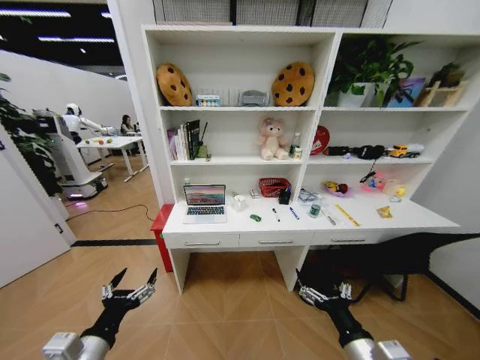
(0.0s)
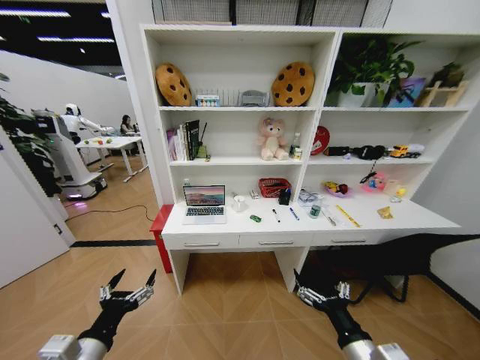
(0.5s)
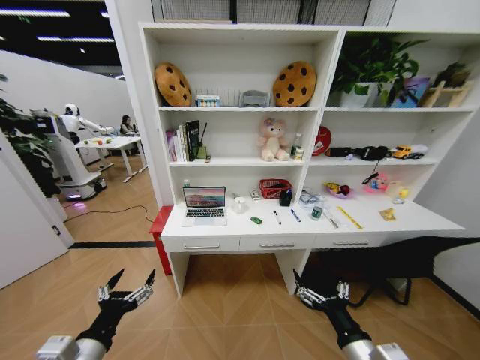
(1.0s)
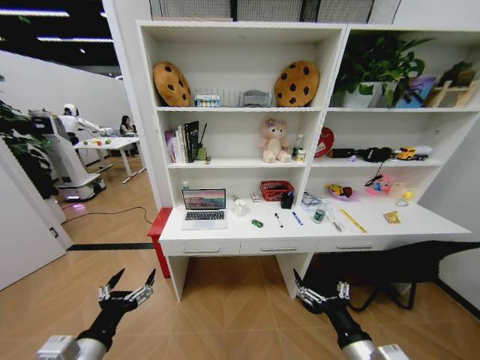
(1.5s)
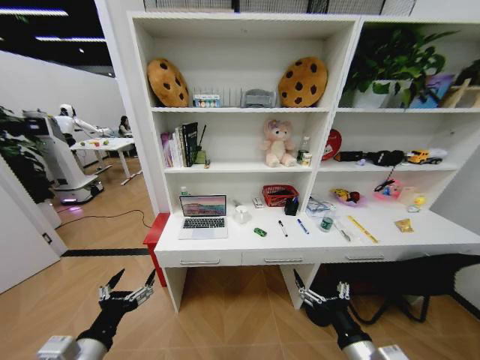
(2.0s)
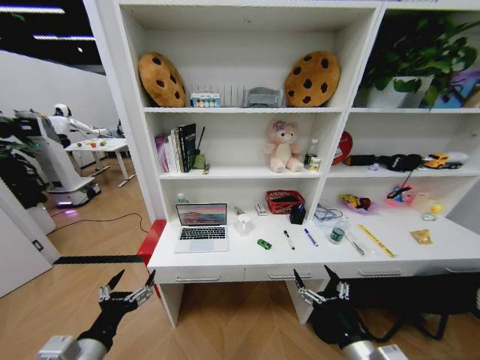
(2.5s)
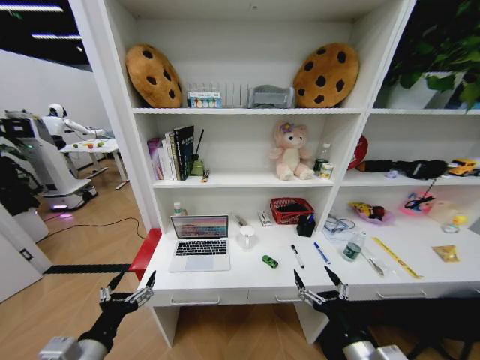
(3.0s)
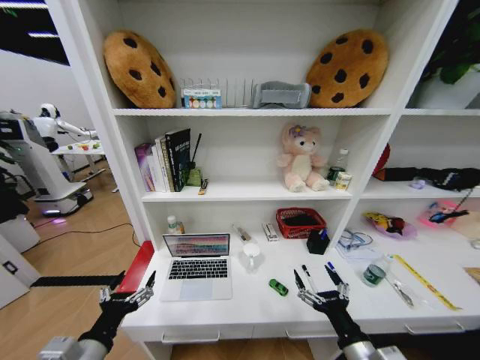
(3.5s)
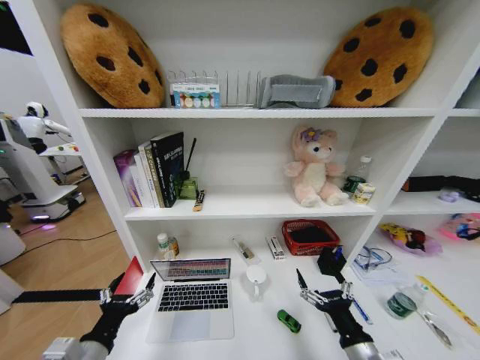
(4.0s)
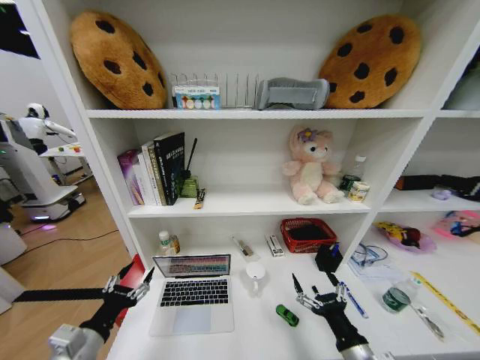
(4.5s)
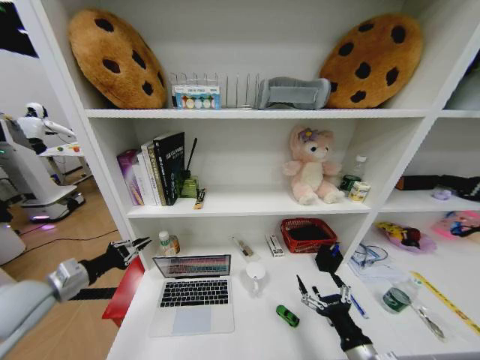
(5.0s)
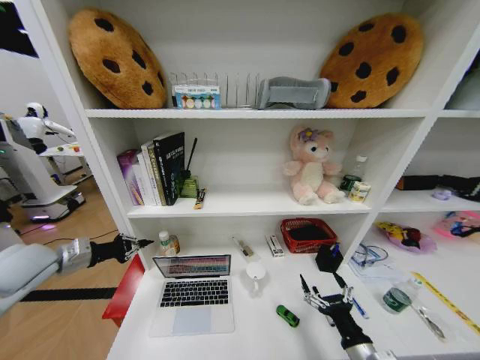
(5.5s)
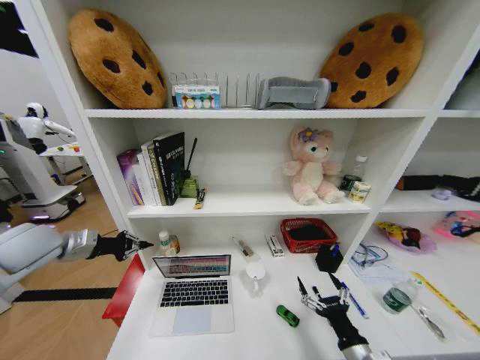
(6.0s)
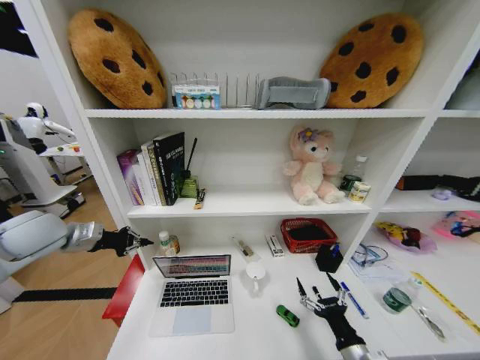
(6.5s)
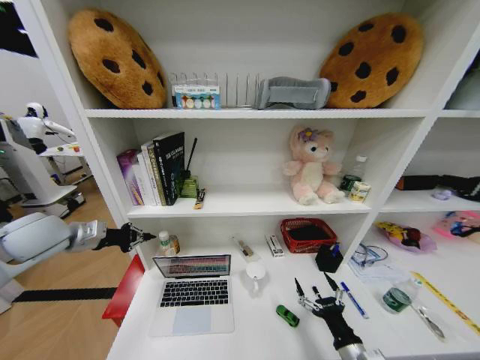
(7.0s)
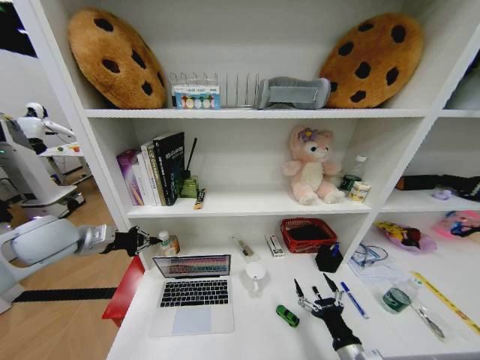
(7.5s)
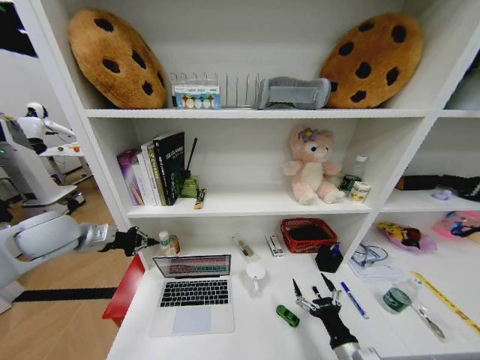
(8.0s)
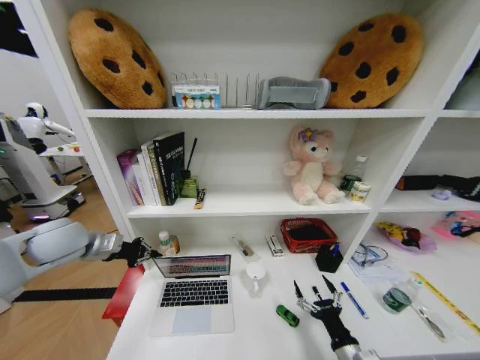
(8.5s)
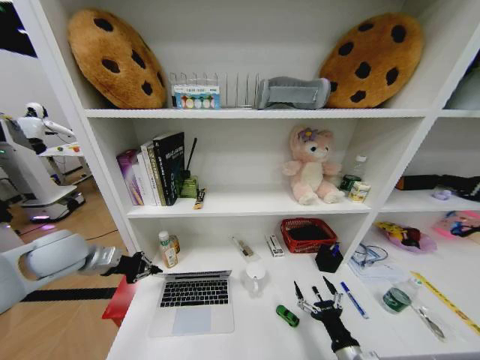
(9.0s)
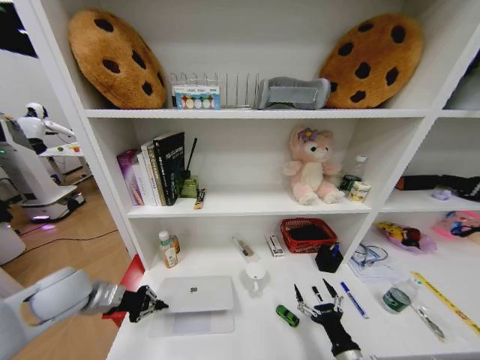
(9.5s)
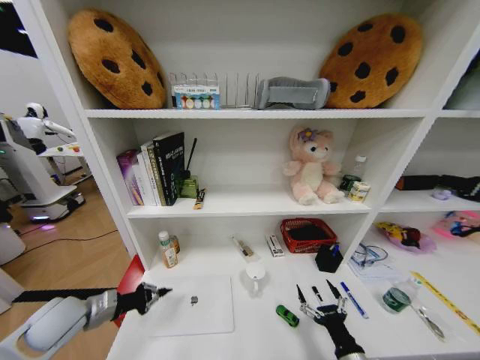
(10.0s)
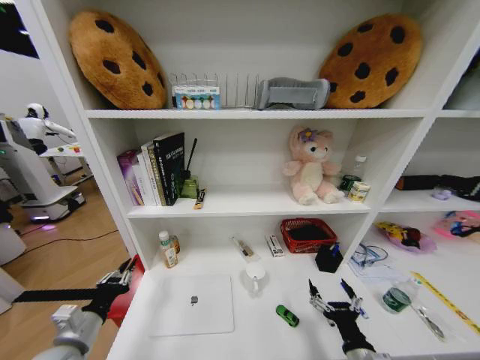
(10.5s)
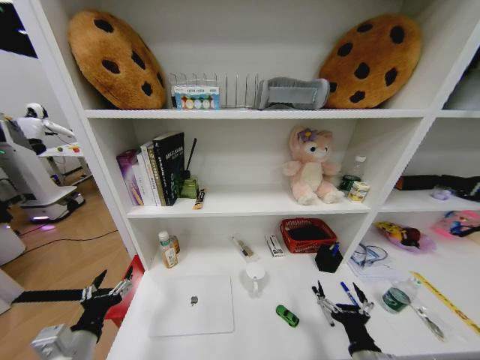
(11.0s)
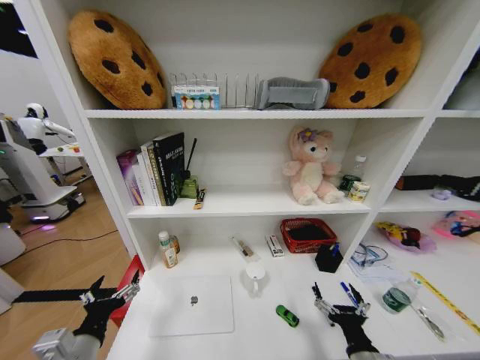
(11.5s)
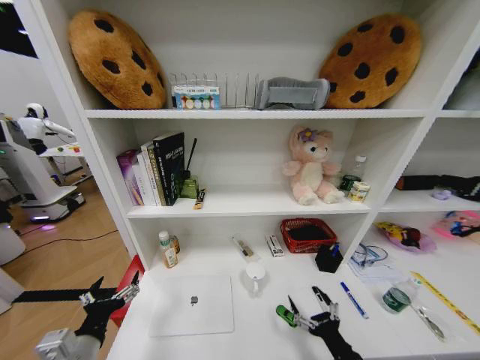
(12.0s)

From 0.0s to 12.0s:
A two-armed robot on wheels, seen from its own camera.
Task of the whole recording: Organize the objects on the table.
From 4.0s to 6.0s: The left gripper travels forward, upward and to the left by some 30 cm, and closes its fingers; the right gripper shifts by roughly 5 cm.
From 6.0s to 8.0s: The grippers stay close to where they were, moving slightly.
From 8.0s to 10.0s: The left gripper is displaced downward and backward by some 20 cm.
From 10.0s to 12.0s: The left gripper goes some 15 cm backward and to the right, and opens.

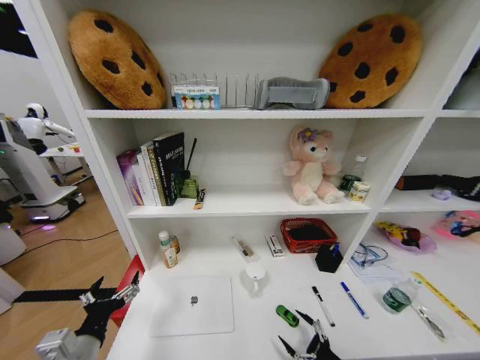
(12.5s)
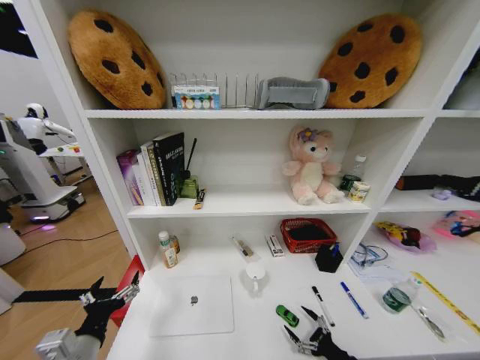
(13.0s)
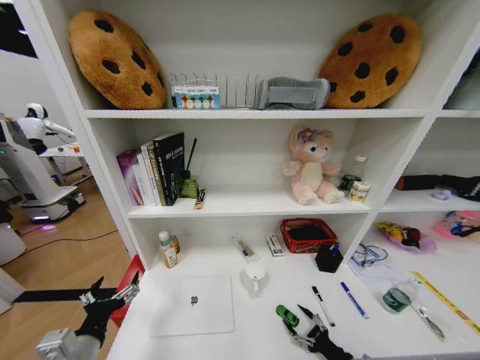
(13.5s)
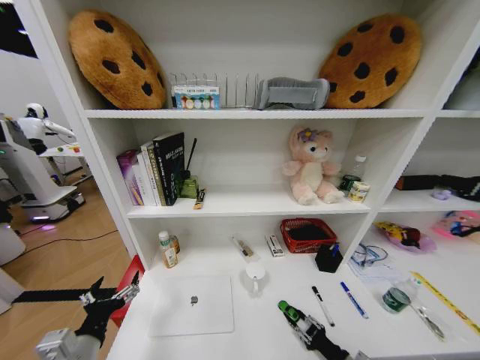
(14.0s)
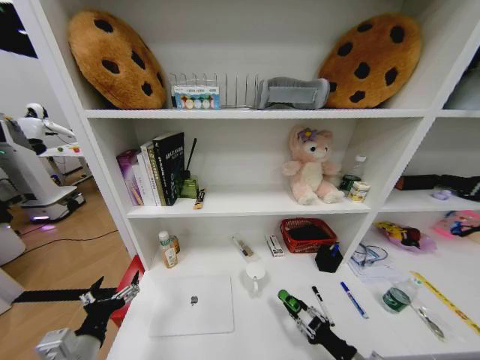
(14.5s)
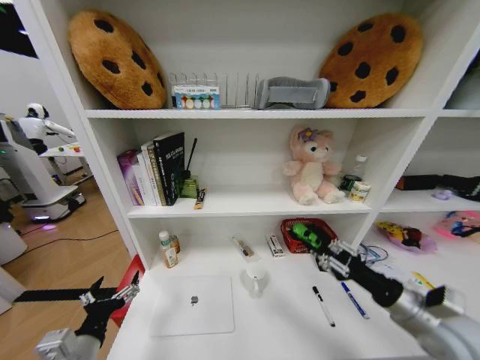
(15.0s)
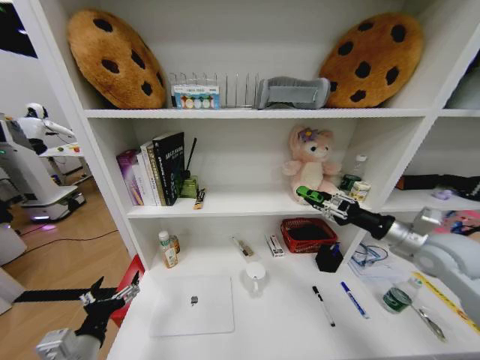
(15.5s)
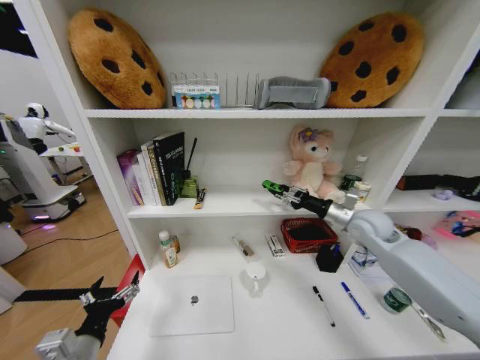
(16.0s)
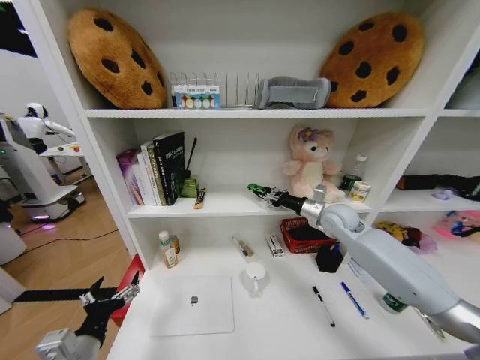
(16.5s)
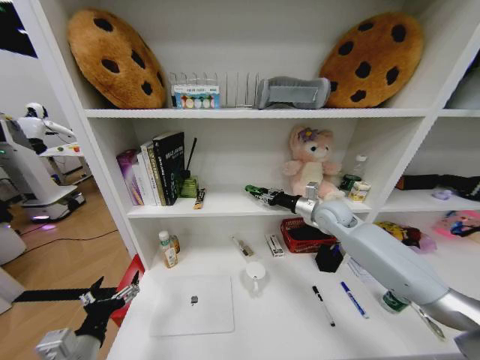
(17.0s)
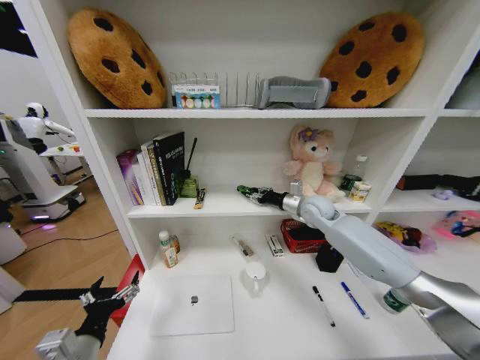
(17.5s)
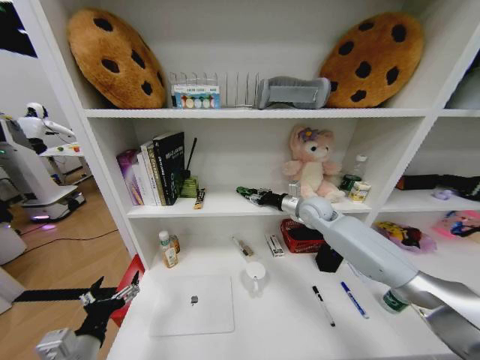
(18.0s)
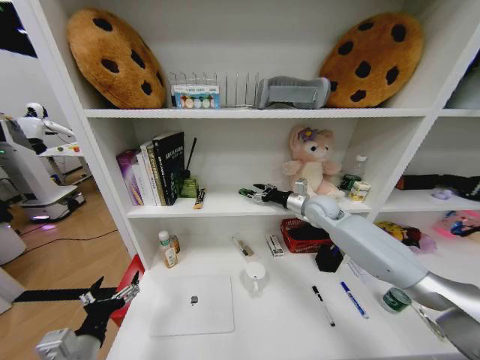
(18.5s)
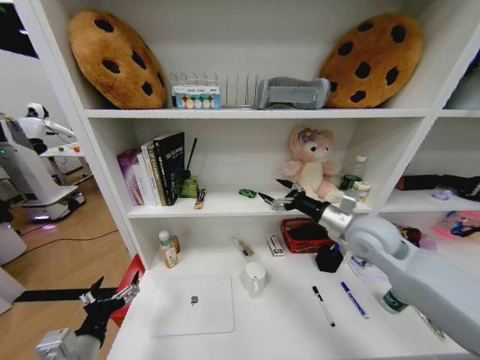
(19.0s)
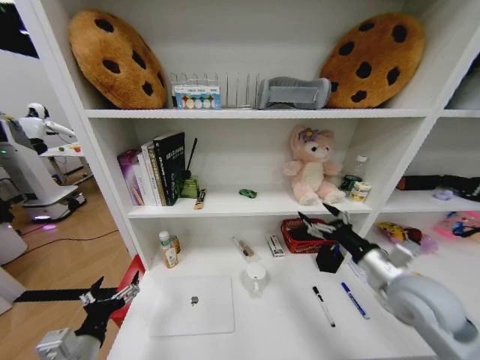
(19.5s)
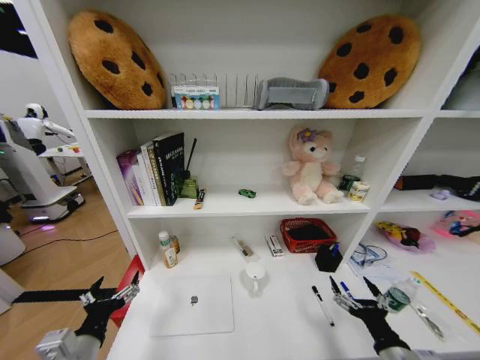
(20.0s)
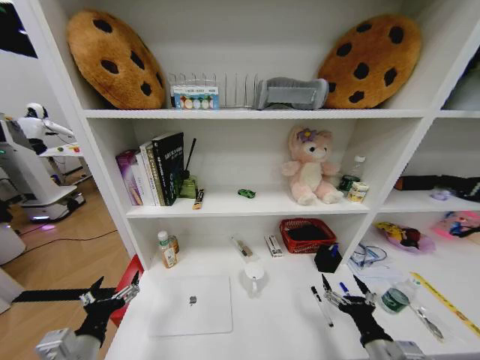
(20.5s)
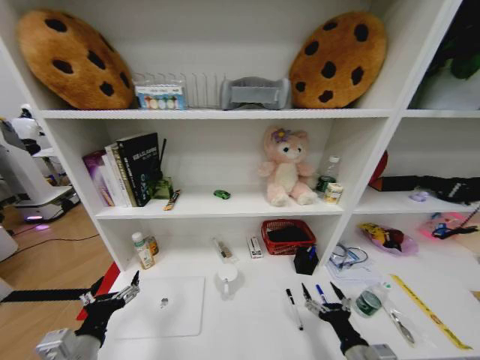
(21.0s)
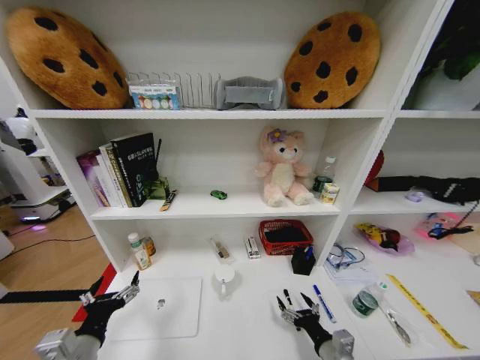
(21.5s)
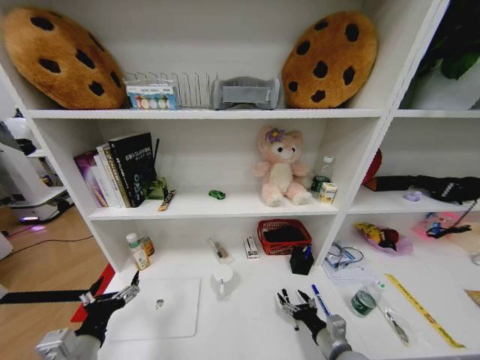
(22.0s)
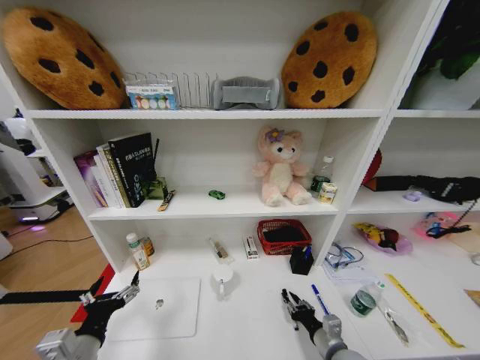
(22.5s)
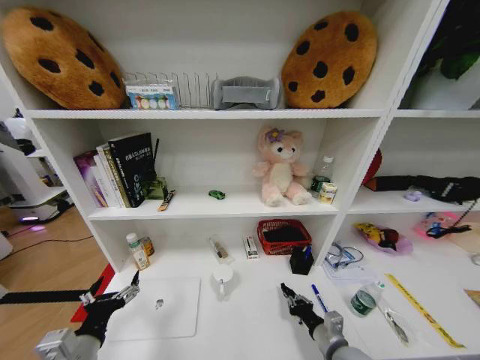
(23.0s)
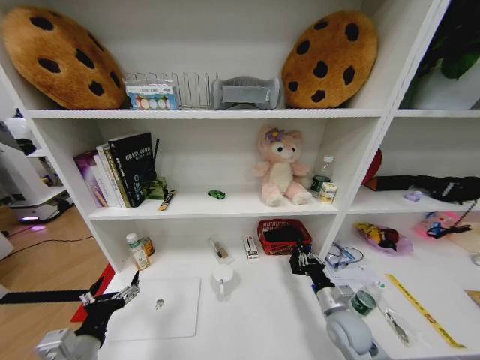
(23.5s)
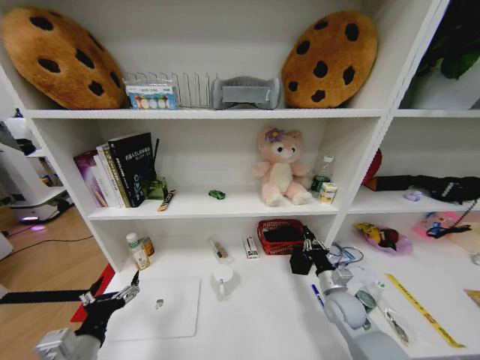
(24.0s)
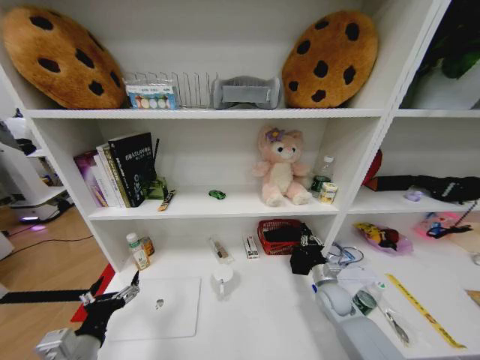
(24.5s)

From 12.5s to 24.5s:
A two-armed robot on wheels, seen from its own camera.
Task of the whole recording: Organize the objects on the table.
From 12.5s to 14.5s: The right gripper closes up.
From 14.5s to 16.5s: The right gripper shifts roughly 40 cm forward and upward.
From 16.5s to 18.5s: The right gripper ends up about 5 cm from where it was, and opens its fingers.
From 18.5s to 20.5s: The right gripper heads backward and downward, covering some 40 cm.
From 20.5s to 22.5s: The right gripper shifts about 10 cm downward, forward and to the left, and closes up.
From 22.5s to 24.5s: The right gripper goes about 15 cm forward.

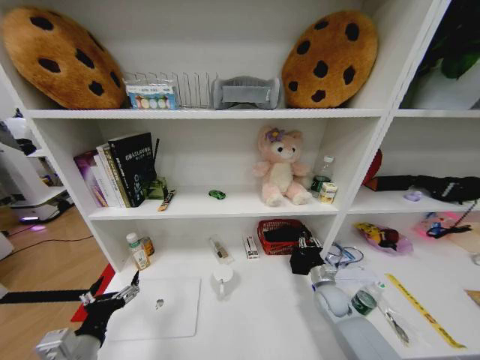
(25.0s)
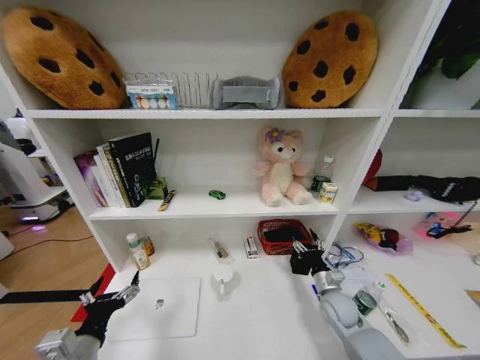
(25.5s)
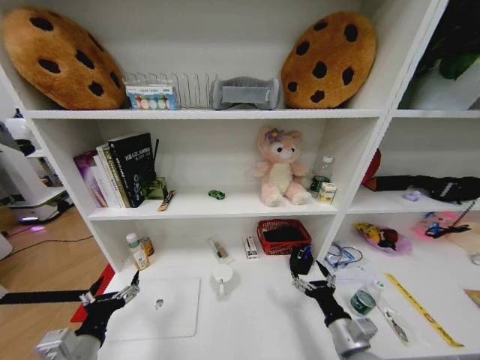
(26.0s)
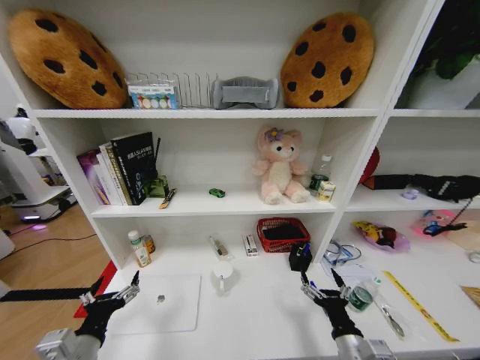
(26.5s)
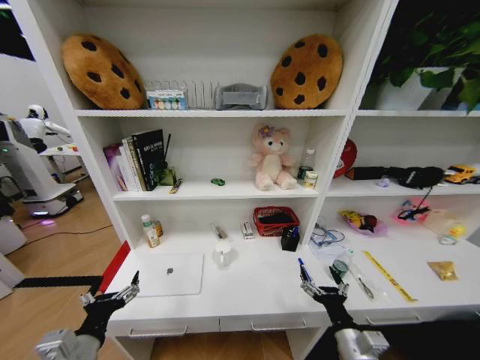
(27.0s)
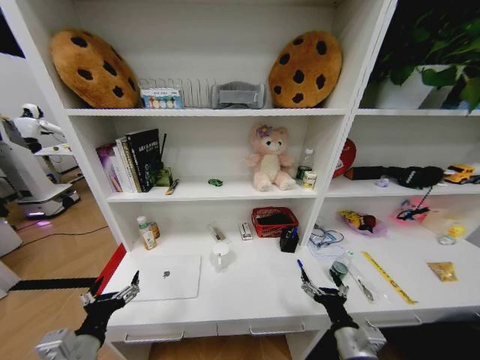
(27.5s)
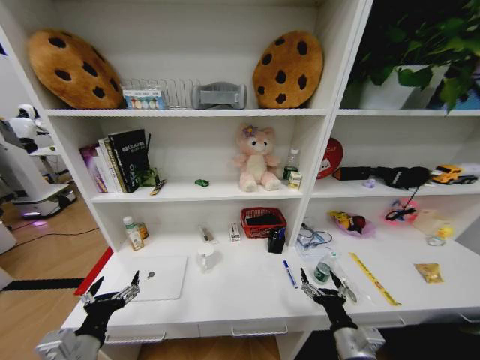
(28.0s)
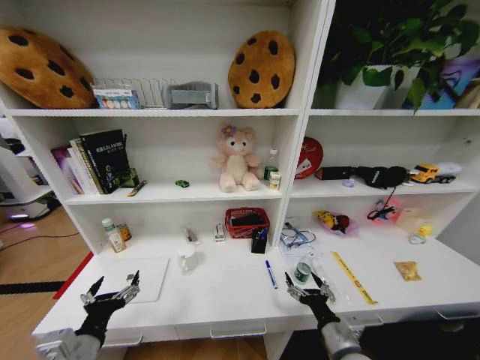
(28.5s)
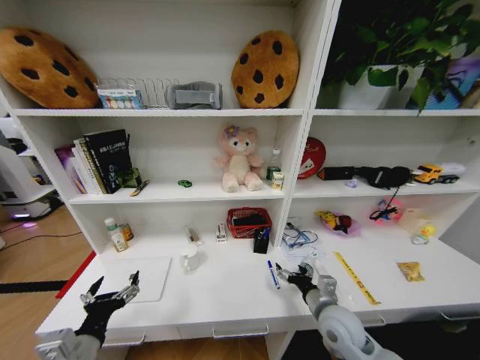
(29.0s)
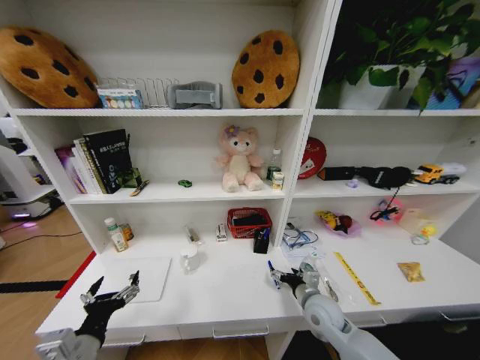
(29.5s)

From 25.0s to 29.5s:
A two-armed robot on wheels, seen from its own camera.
Task of the whole recording: Organize the objects on the table.
From 25.0s to 27.0s: The right gripper goes roughly 20 cm backward, and opens.
From 27.0s to 29.5s: The right gripper travels forward by roughly 15 cm.
